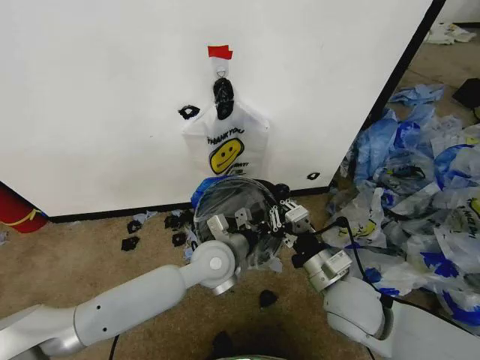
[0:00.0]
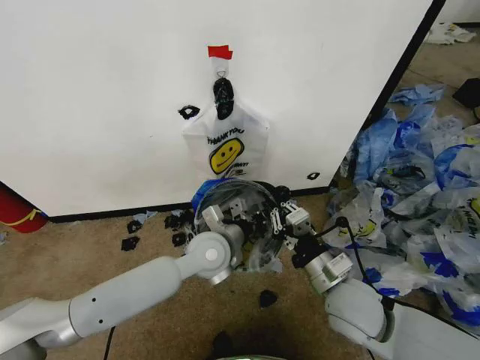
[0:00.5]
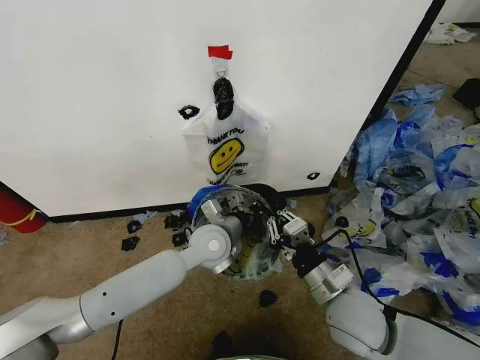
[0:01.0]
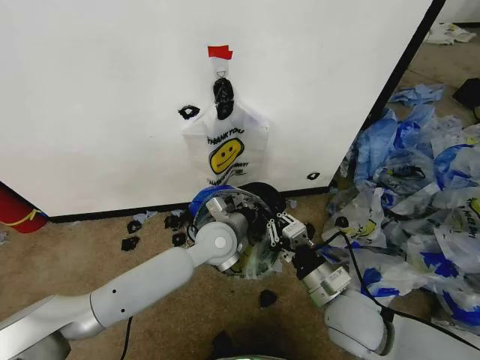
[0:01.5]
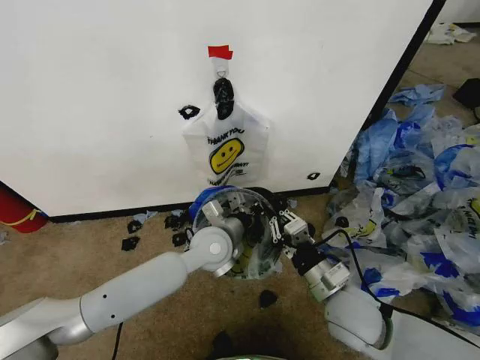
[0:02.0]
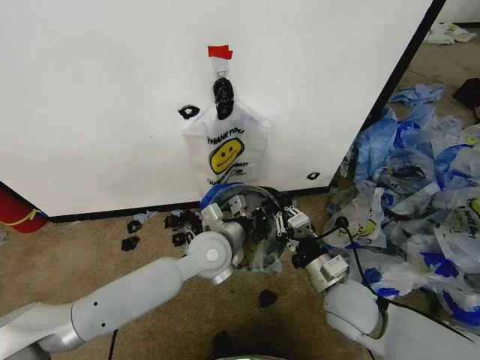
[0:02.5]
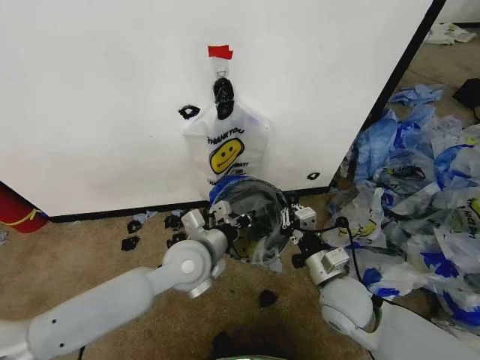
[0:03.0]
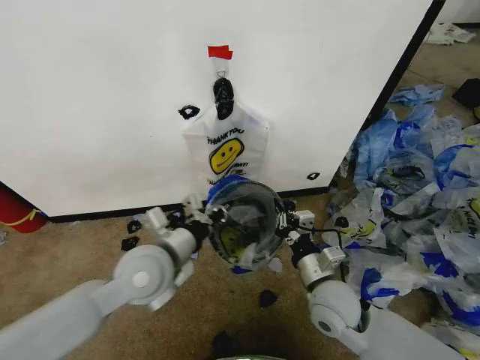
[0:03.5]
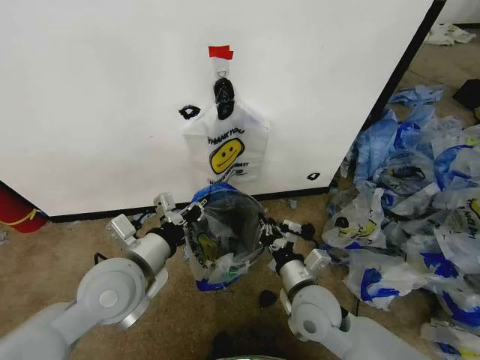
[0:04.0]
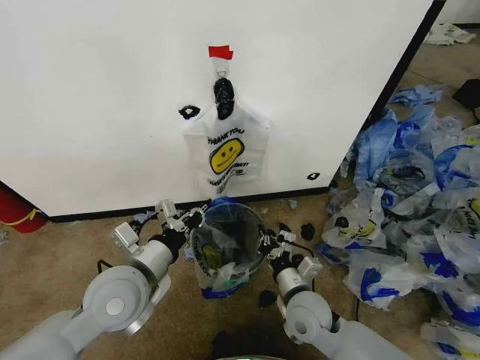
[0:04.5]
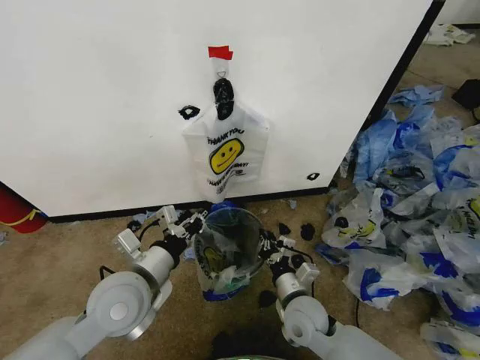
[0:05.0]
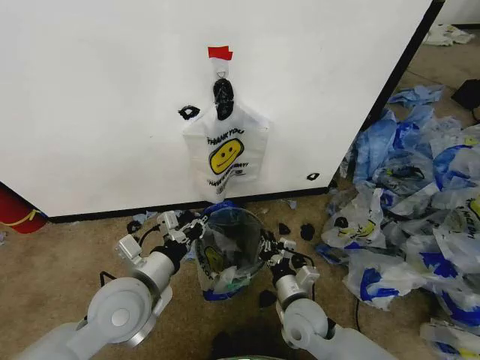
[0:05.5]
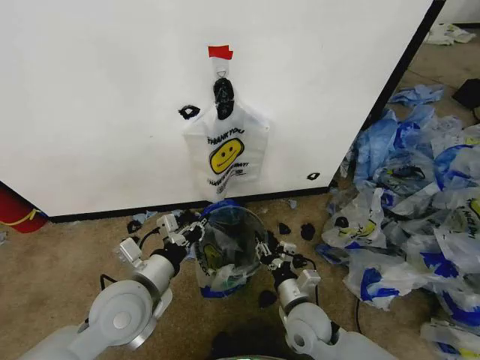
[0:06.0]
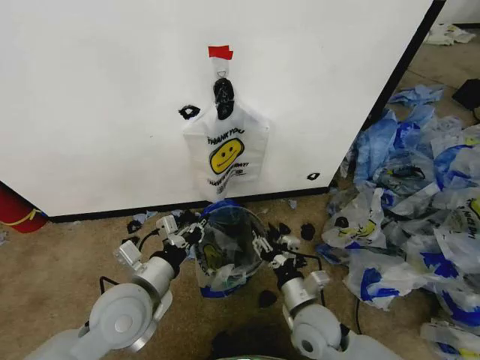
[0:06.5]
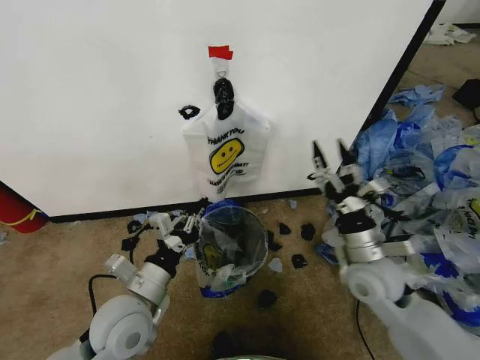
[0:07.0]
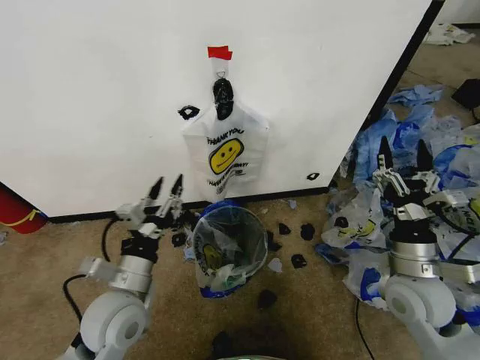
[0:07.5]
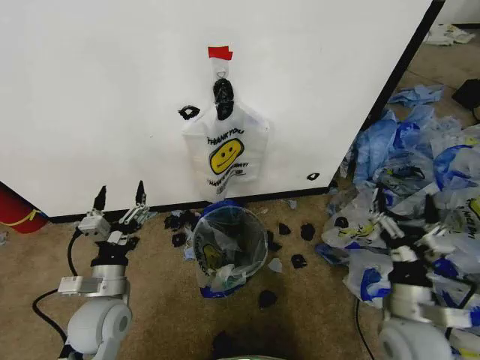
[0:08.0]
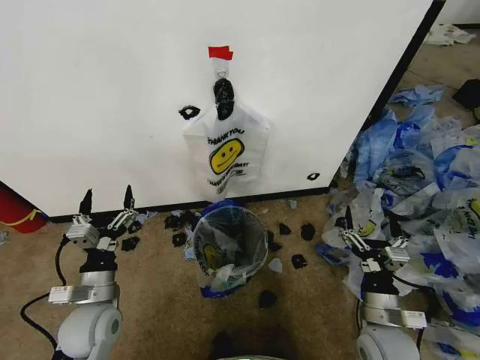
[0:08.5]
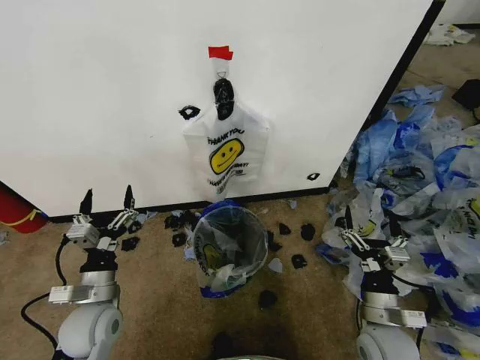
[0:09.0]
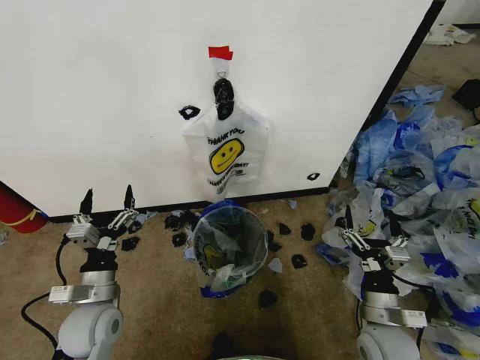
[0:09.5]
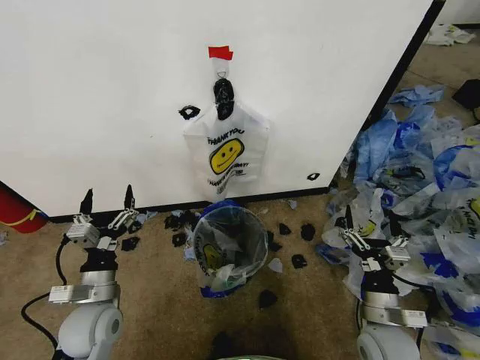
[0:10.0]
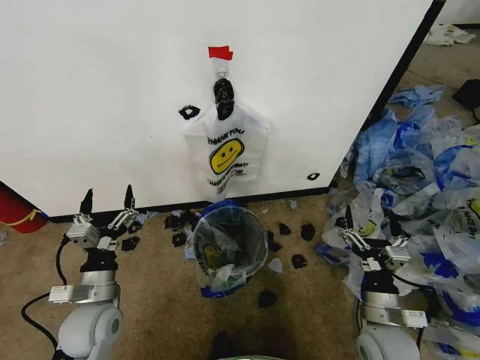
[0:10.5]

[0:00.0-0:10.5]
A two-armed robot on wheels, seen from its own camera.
Task of the whole recording: Pick up the garbage bag from the wall and place it over the trash bin.
0:00.0 to 0:02.0: There are only small adjustments of the grippers.
0:02.0 to 0:04.0: The right gripper goes about 5 cm to the left. The left gripper heads to the left, backward and upward, covering about 20 cm.
0:04.0 to 0:06.5: The two grippers go some 5 cm downward. The right gripper opens.
0:06.5 to 0:08.5: The right gripper shifts approximately 15 cm to the right, and opens; the left gripper heads to the left and downward, covering roughly 10 cm, and opens its fingers.
0:08.5 to 0:10.5: Neither gripper changes place.

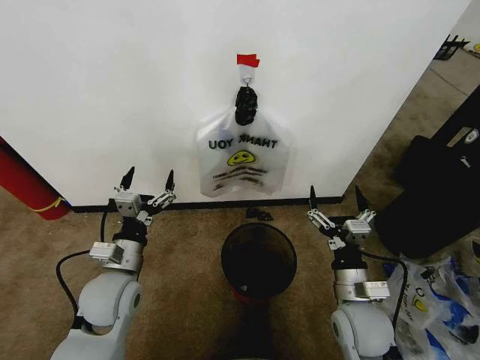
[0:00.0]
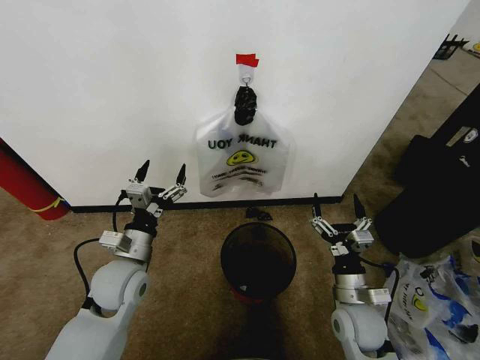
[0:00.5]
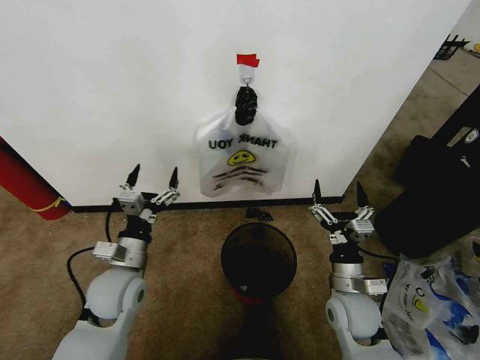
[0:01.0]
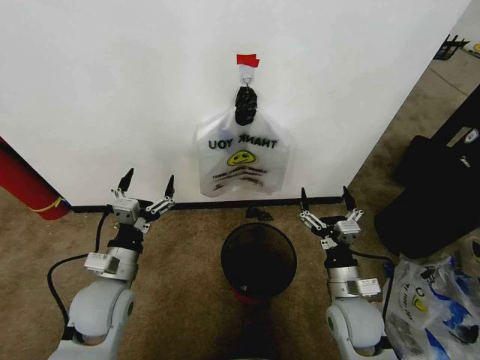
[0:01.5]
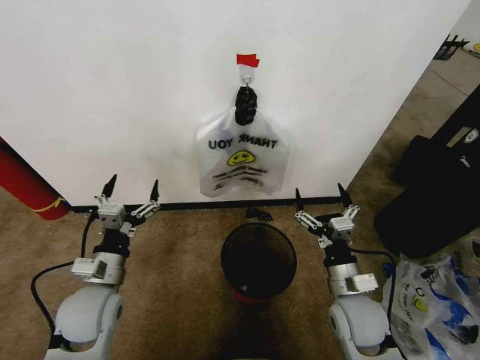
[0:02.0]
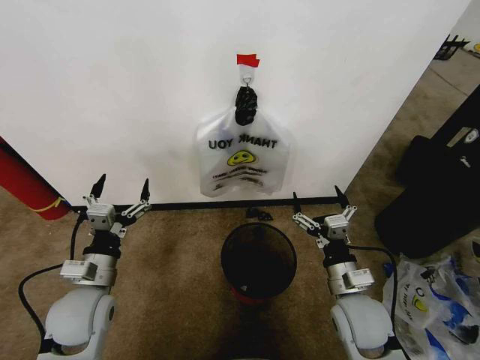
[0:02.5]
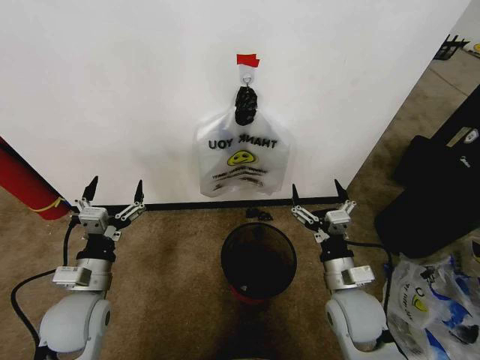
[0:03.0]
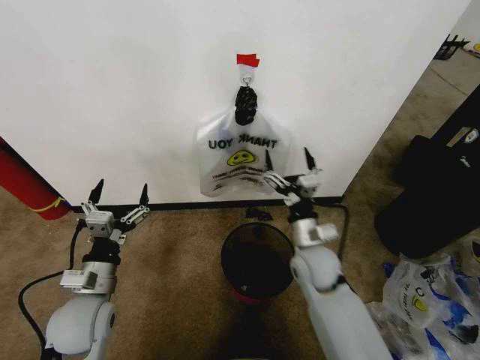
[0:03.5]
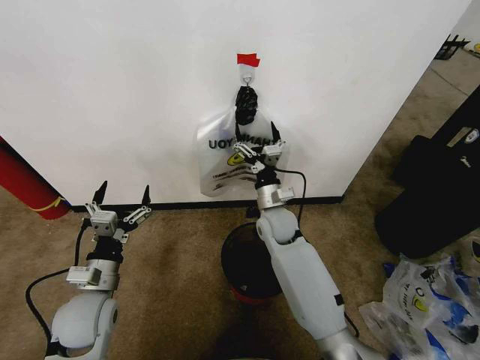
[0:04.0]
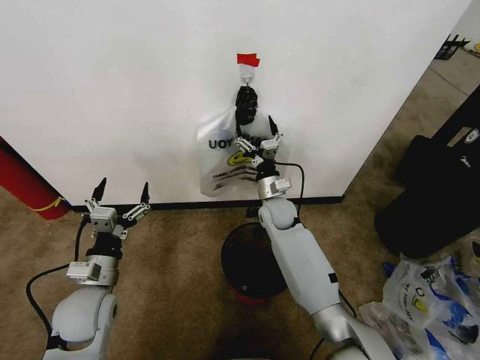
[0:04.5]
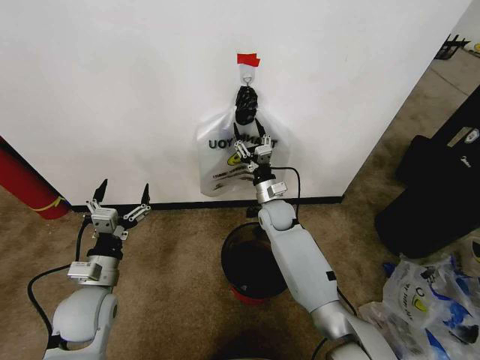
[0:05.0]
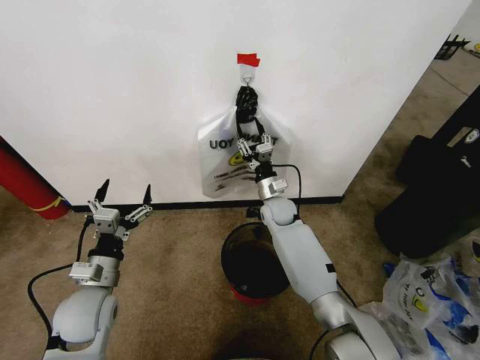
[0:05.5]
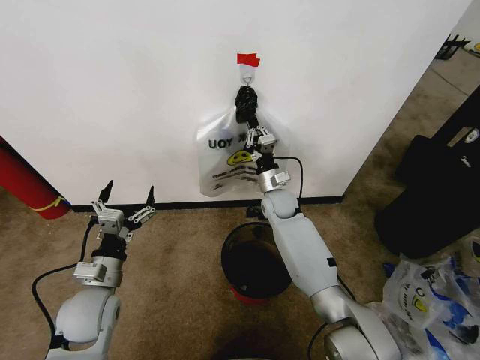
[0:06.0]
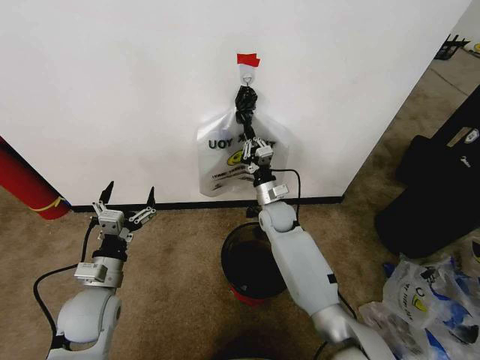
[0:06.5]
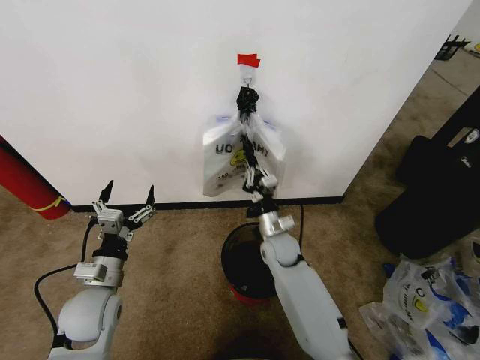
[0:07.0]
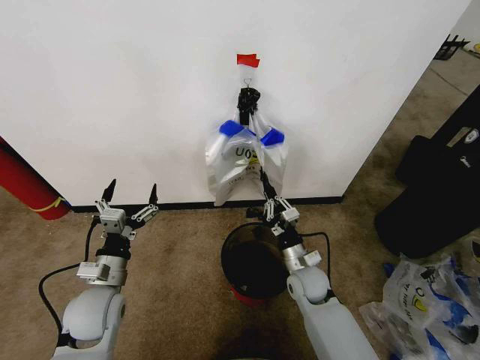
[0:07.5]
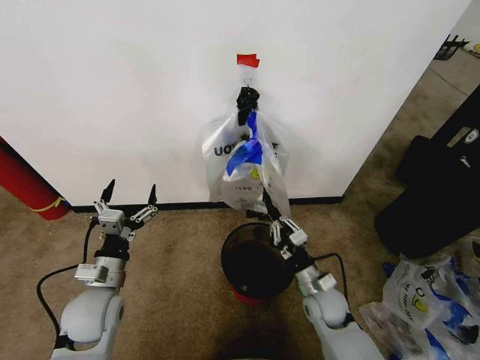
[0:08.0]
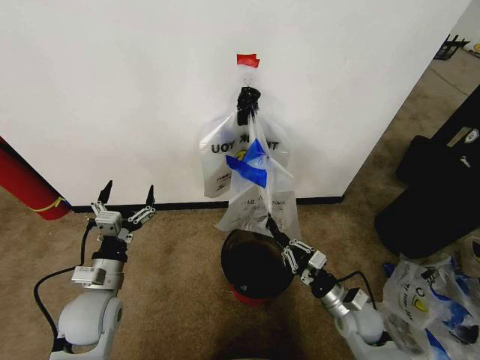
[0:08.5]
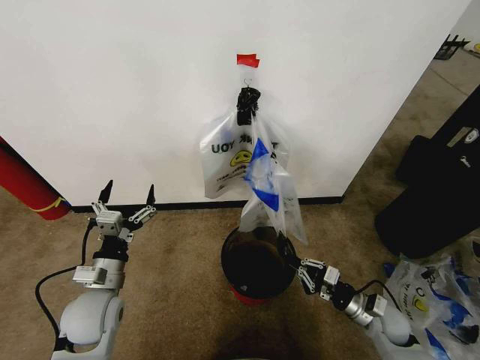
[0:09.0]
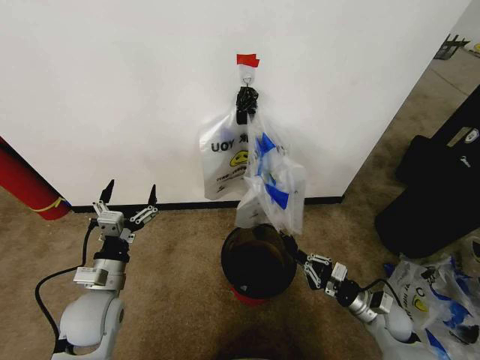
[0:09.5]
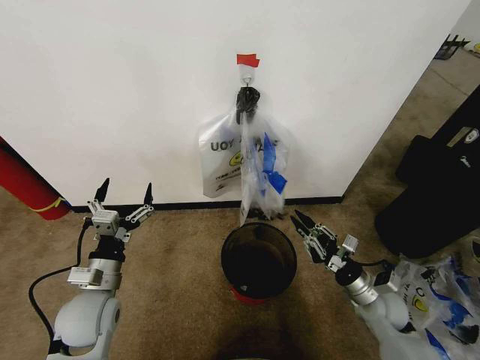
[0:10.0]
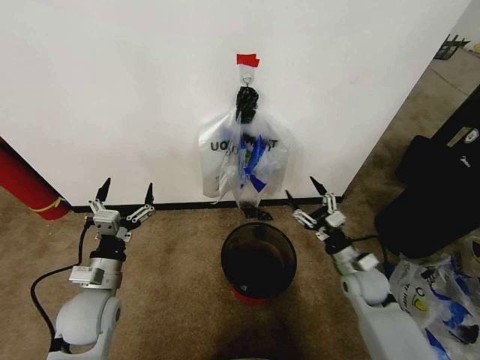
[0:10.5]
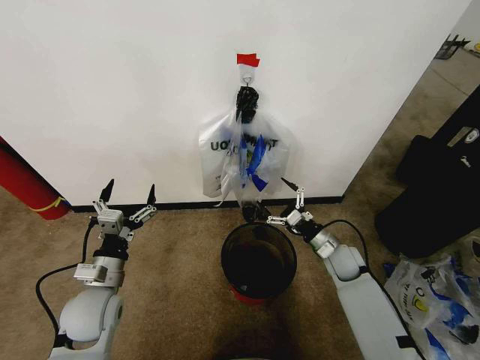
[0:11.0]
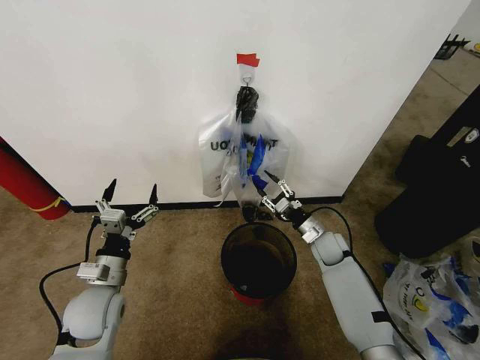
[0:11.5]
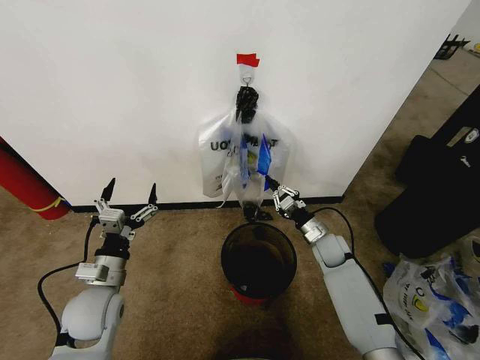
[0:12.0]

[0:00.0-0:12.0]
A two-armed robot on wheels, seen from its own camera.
Task of the whole recording: Pick up the garbage bag from the wall and place it over the trash bin.
0:02.0 to 0:04.0: The right gripper is displaced forward and to the left by approximately 25 cm.
0:04.0 to 0:06.0: The right gripper moves forward, approximately 10 cm, and closes up.
0:06.0 to 0:08.0: The right gripper shifts roughly 30 cm backward, downward and to the right.
0:08.0 to 0:10.0: The right gripper goes approximately 10 cm to the right.
0:10.0 to 0:12.0: The right gripper heads forward, covering roughly 15 cm, and opens, then closes once more.

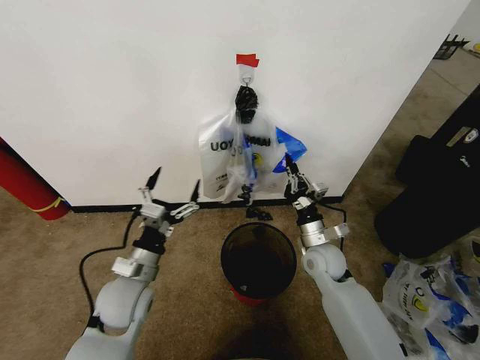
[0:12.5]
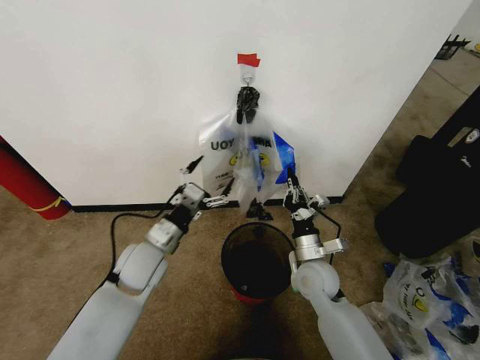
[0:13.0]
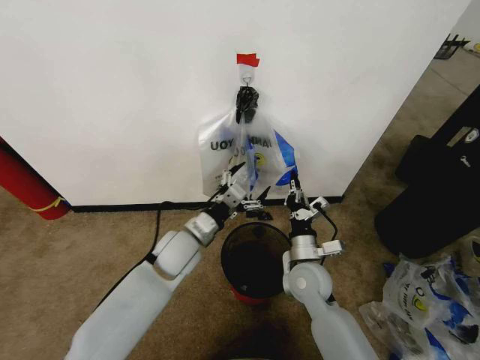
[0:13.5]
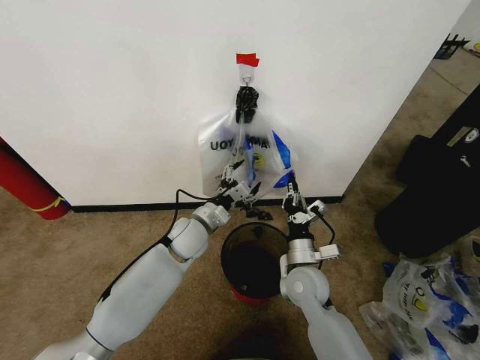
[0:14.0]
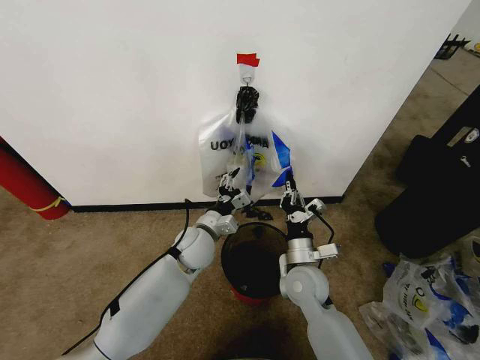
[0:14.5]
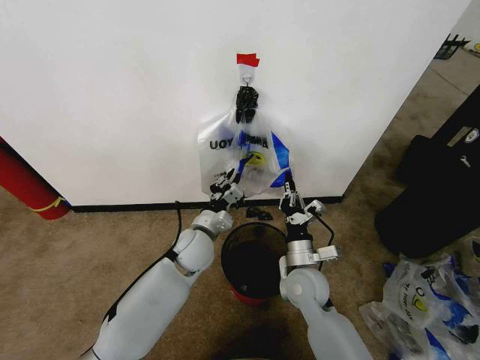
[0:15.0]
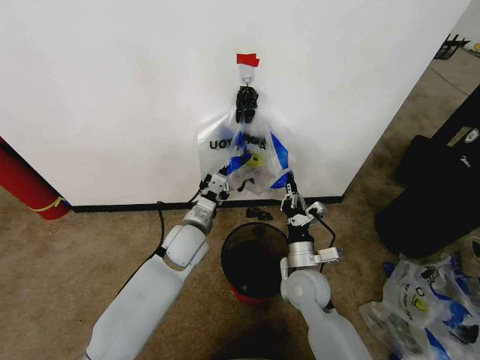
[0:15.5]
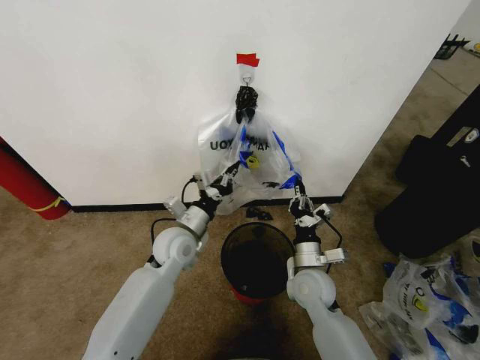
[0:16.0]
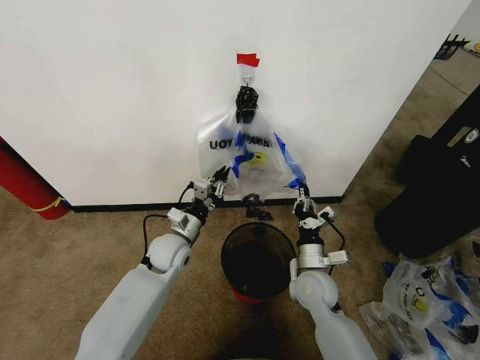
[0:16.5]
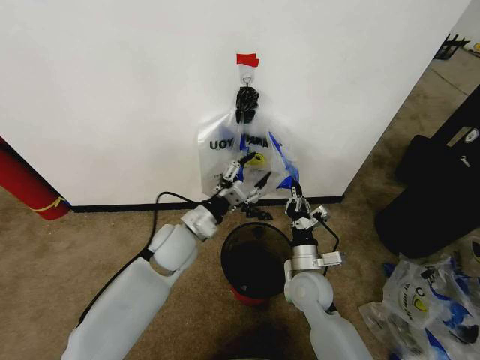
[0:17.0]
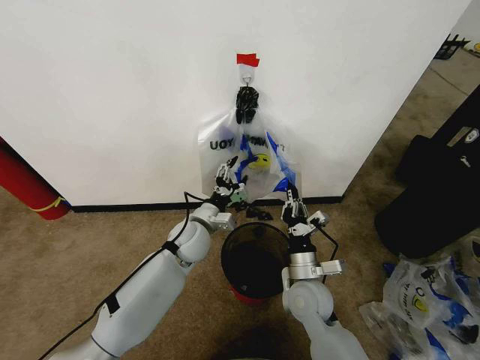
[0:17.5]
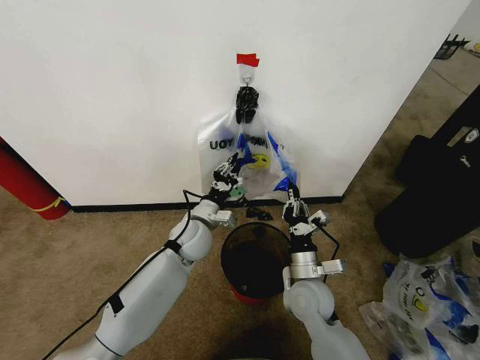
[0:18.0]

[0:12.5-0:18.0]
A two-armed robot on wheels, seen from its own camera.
Task of the whole recording: Pick up the garbage bag from the wall and place it over the trash bin.
0:12.5 to 0:14.5: The right gripper moves to the left and backward, about 10 cm. The left gripper shifts some 15 cm forward and to the right.
0:14.5 to 0:16.0: The left gripper ends up roughly 5 cm from where it was, and closes.
0:16.0 to 0:18.0: The left gripper opens and closes again.
